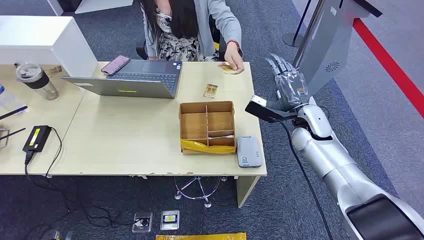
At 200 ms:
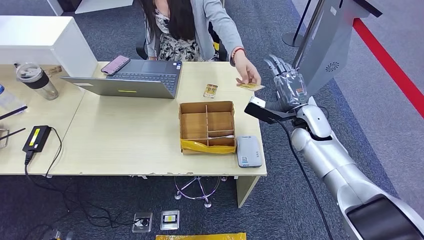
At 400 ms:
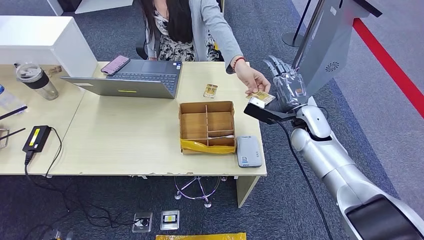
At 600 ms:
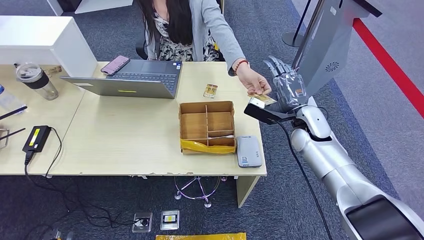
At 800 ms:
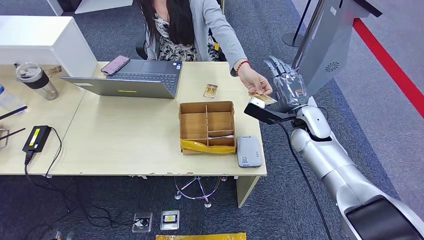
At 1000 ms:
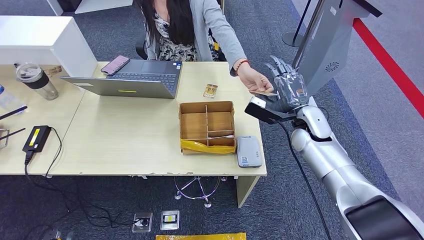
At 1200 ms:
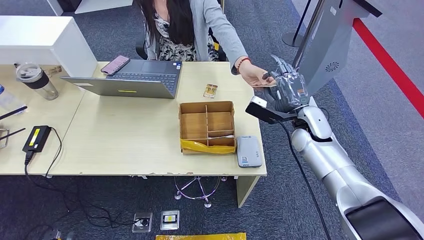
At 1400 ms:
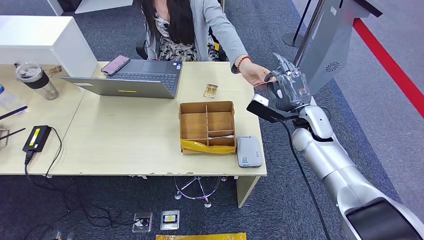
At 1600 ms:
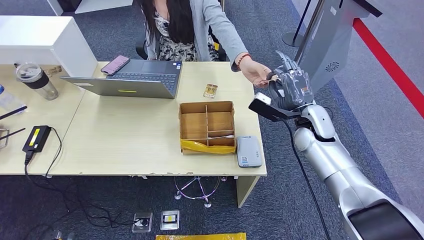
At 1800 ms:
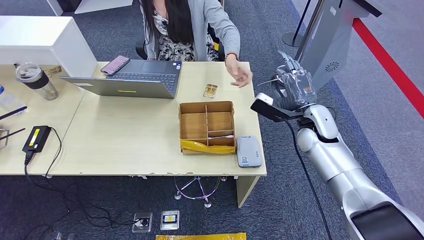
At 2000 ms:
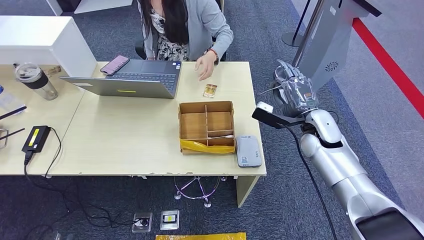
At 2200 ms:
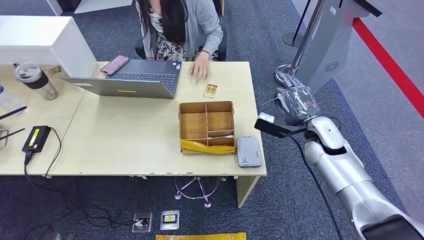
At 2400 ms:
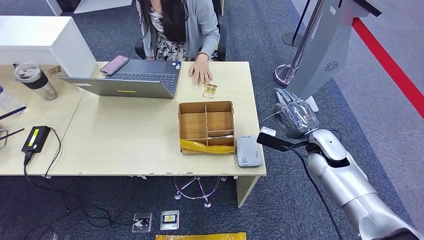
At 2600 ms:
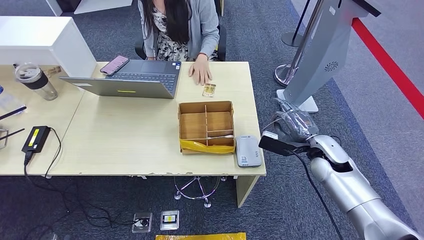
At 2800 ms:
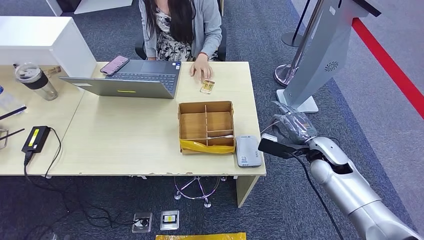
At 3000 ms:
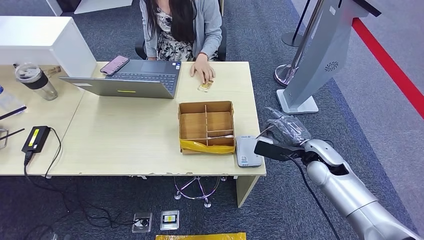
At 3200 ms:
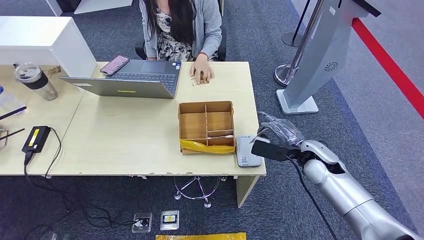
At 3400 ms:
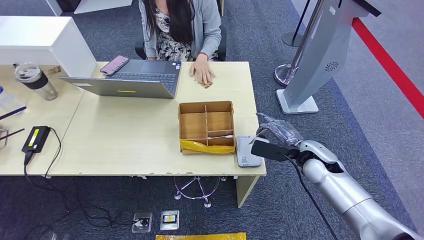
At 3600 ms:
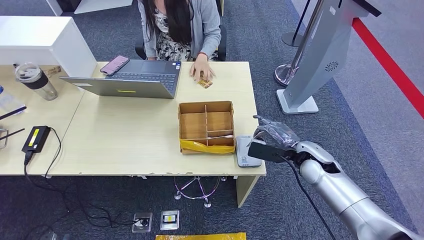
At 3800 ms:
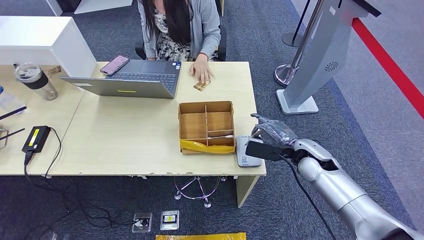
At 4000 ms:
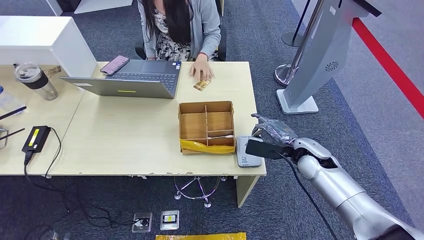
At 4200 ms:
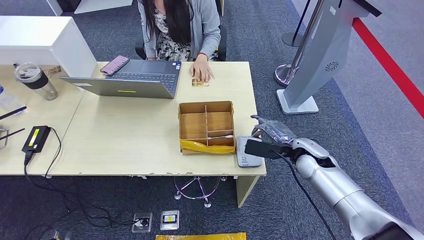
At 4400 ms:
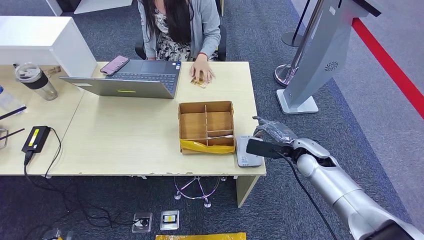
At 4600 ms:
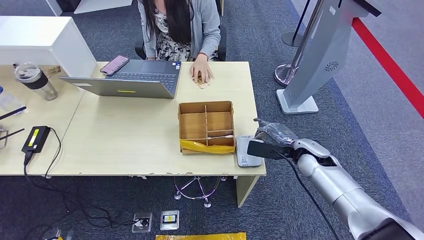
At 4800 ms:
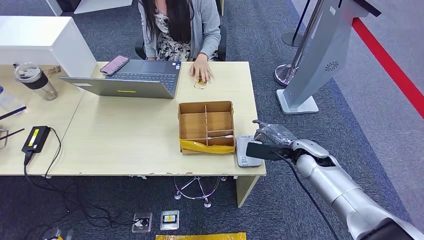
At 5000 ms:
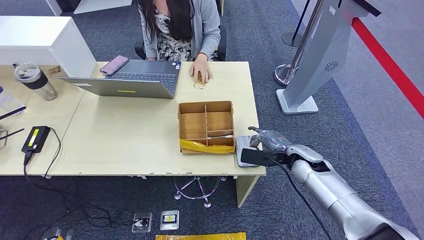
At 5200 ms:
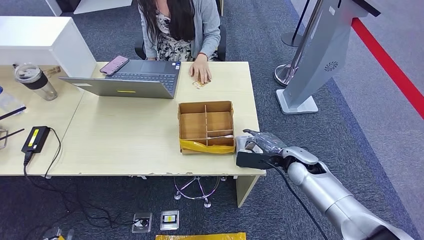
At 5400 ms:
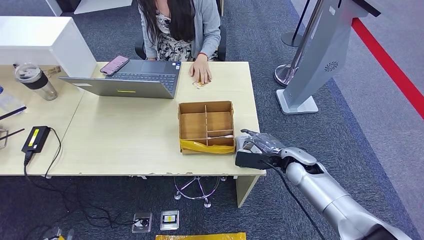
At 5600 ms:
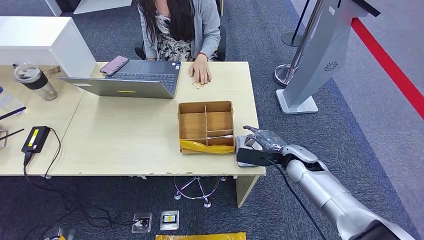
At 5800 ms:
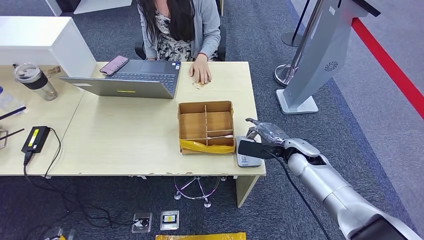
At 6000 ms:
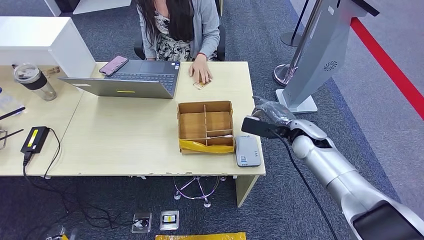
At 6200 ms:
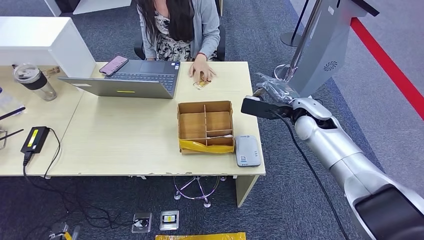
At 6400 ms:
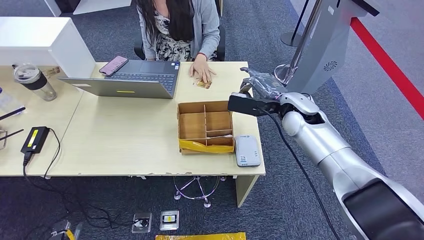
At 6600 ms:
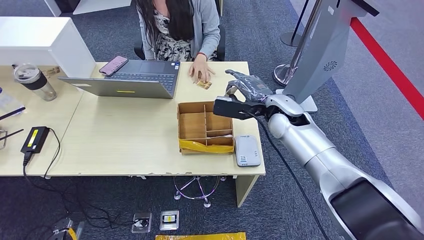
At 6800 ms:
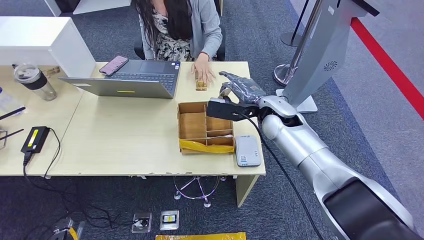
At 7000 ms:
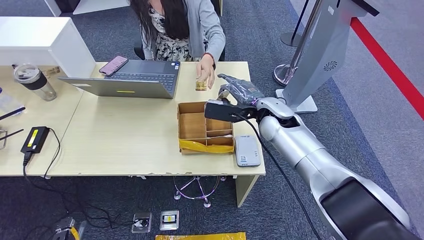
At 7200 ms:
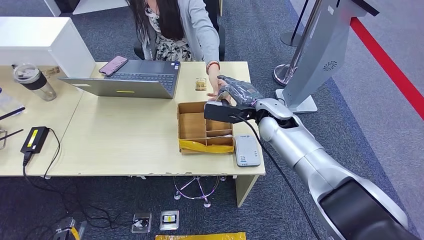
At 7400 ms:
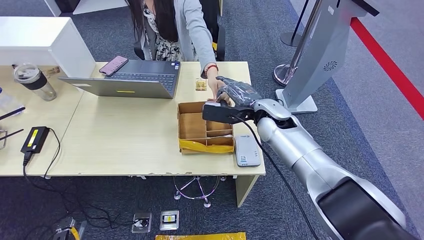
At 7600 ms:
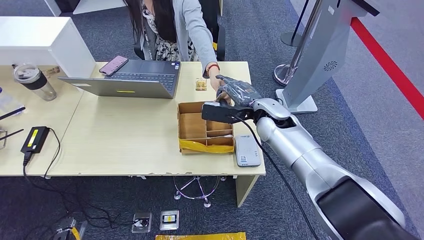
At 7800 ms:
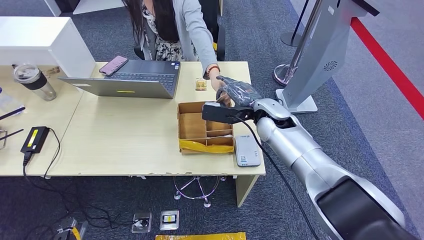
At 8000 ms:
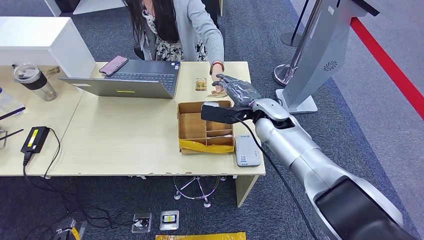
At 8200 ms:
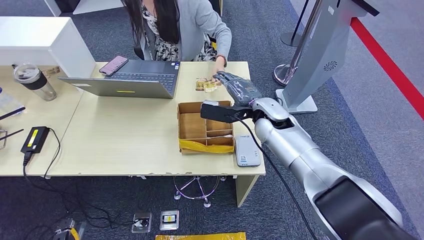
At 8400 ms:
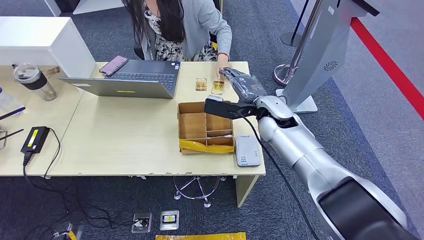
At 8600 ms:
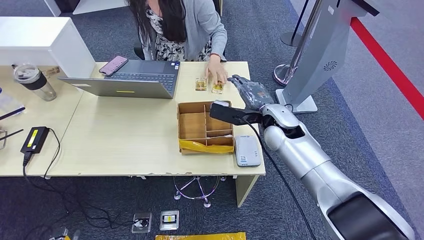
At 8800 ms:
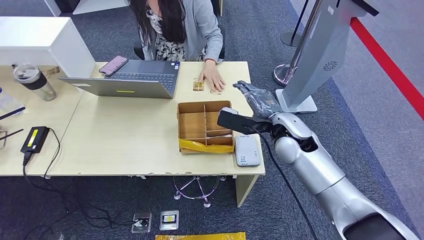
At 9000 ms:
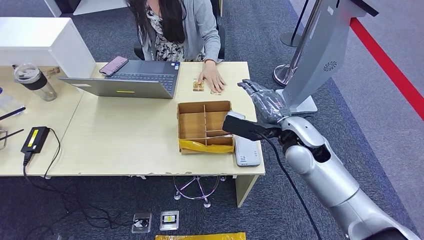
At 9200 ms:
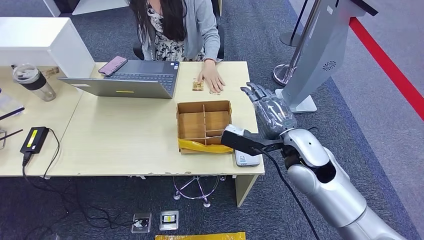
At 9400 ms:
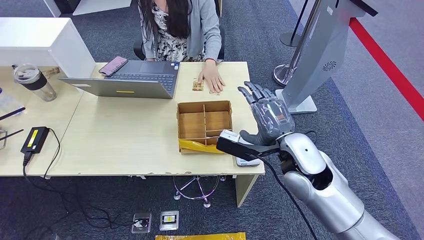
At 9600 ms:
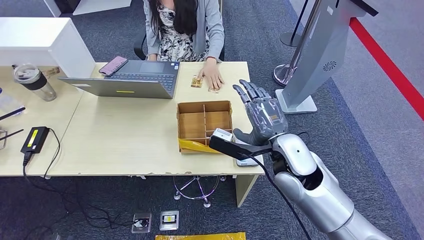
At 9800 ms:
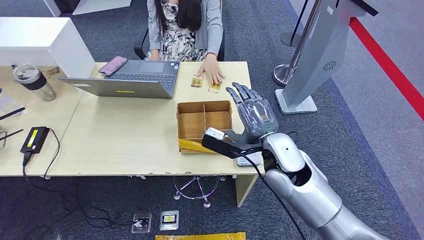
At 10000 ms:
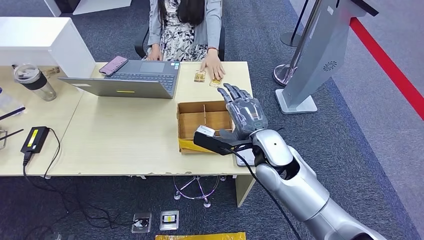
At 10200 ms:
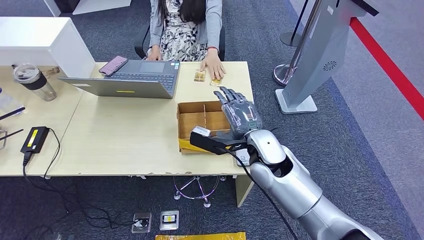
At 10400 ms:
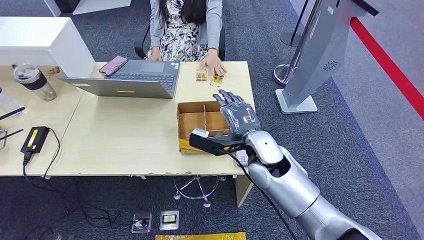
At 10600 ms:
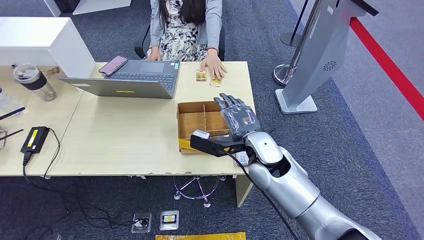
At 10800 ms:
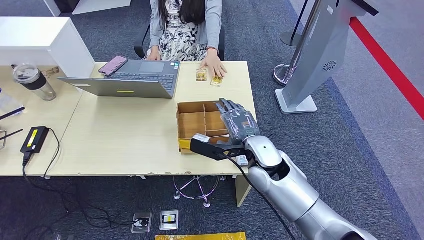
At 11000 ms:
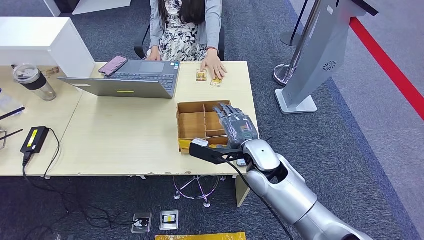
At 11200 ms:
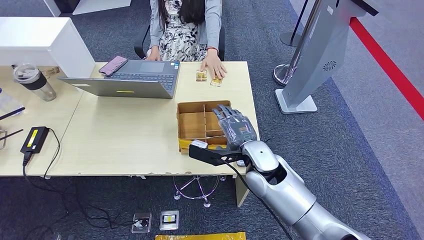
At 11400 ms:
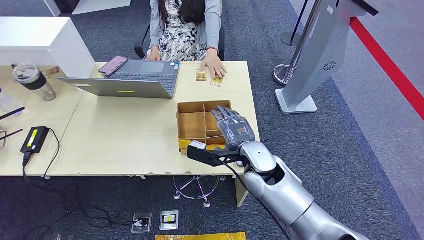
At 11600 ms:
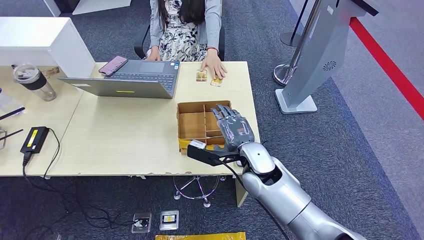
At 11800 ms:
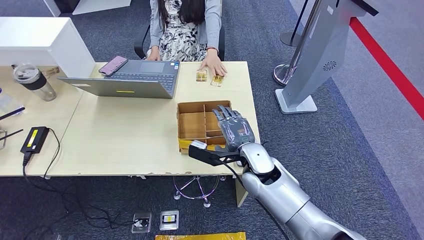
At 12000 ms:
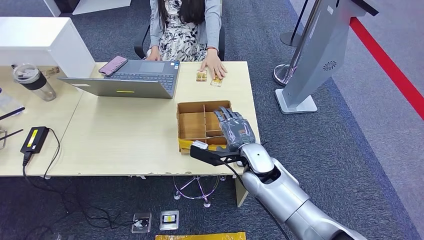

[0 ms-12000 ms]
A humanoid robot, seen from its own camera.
Step, 0 ms to 1400 ms: Take the ID card from the person's hand.
Step, 1600 ms to 4000 ms: Place the ID card on the card reader.
Step, 4200 ms to 8600 ms: Hand the ID card to the person.
1600 ms to 3000 ms: The right hand heads backward and downward, covering approximately 10 cm.
3000 ms to 4400 ms: There are only small adjustments of the hands.
4400 ms to 6000 ms: The right hand ends up some 5 cm from where it was.
6000 ms to 7600 ms: The right hand is displaced to the left and upward by some 15 cm.
7600 ms to 9000 ms: The right hand moves backward, roughly 5 cm.
9000 ms to 10400 ms: The right hand goes some 10 cm to the left.
10400 ms to 12000 ms: The right hand goes about 5 cm downward.

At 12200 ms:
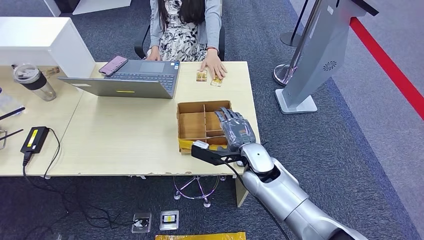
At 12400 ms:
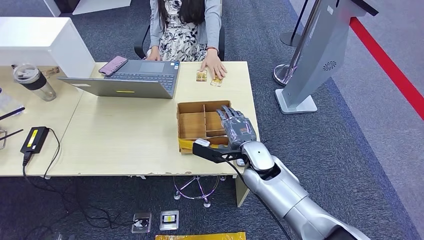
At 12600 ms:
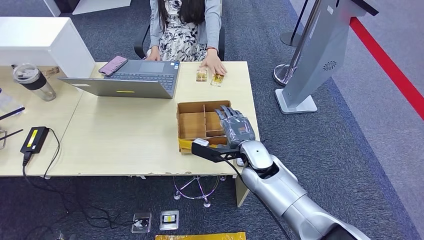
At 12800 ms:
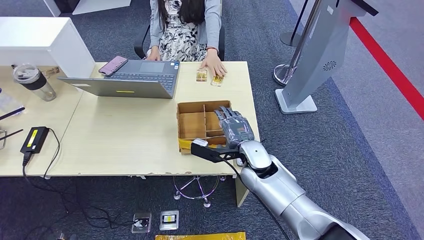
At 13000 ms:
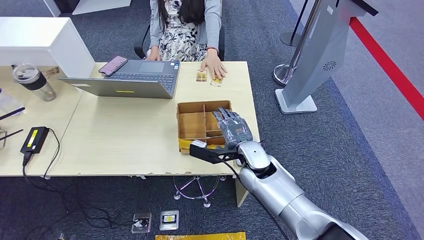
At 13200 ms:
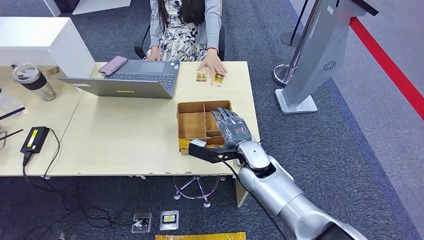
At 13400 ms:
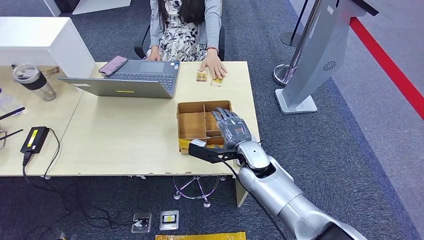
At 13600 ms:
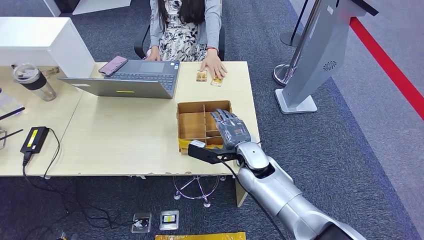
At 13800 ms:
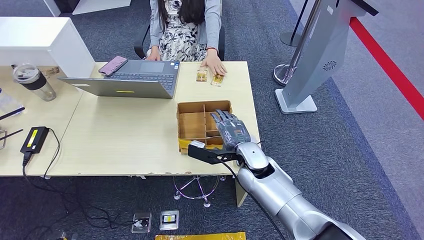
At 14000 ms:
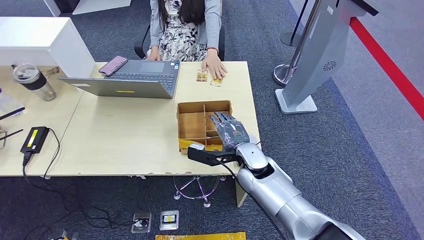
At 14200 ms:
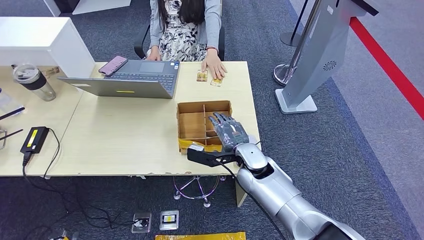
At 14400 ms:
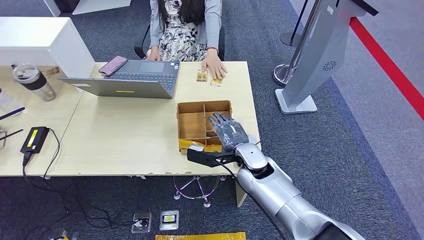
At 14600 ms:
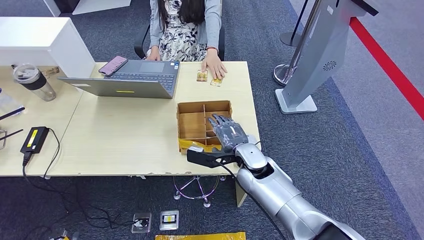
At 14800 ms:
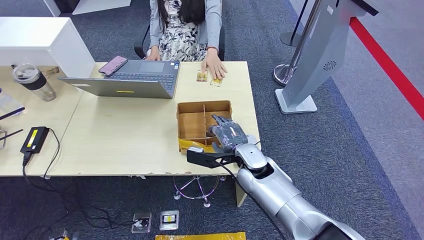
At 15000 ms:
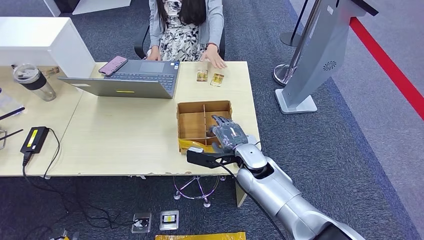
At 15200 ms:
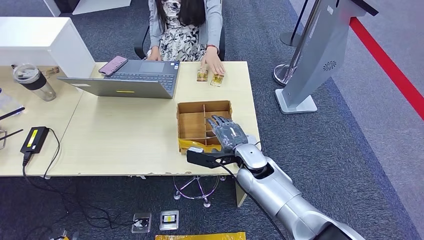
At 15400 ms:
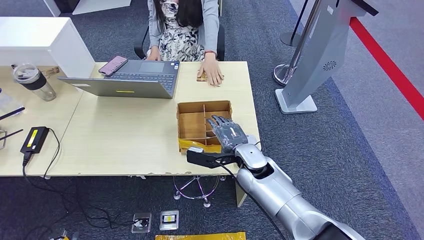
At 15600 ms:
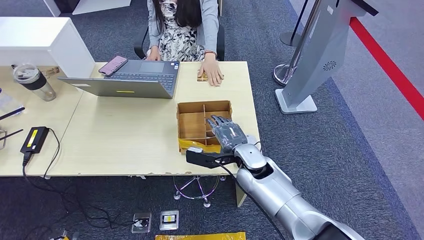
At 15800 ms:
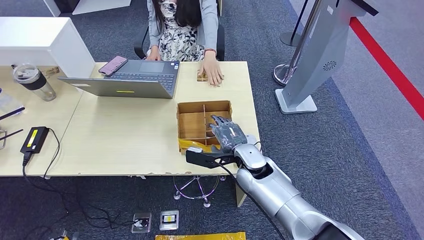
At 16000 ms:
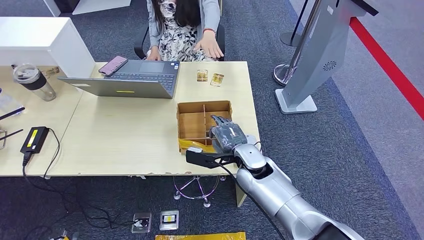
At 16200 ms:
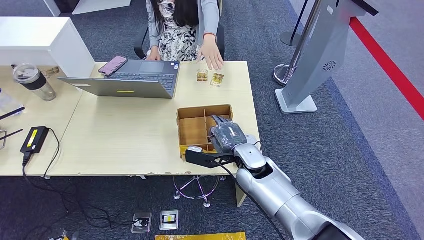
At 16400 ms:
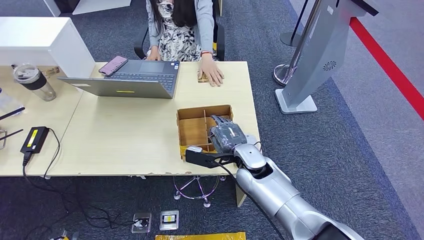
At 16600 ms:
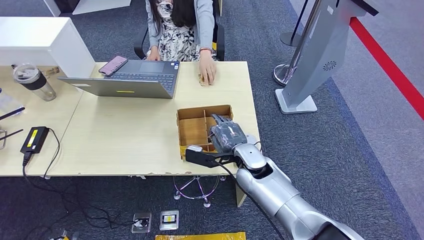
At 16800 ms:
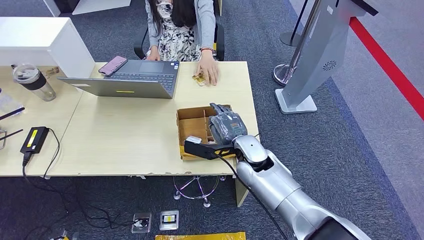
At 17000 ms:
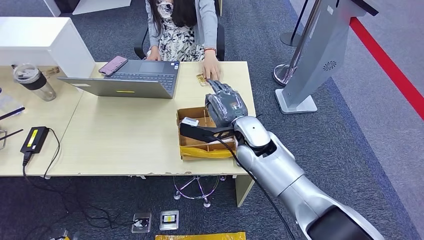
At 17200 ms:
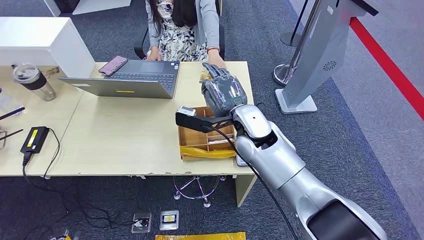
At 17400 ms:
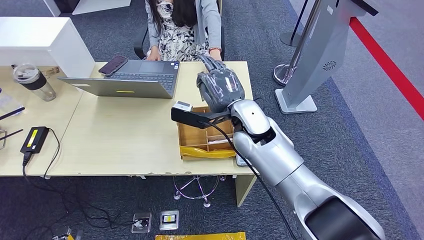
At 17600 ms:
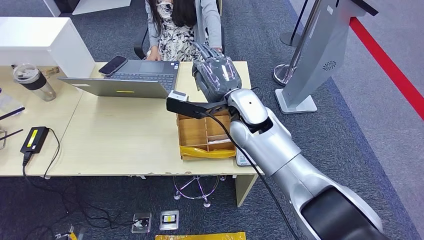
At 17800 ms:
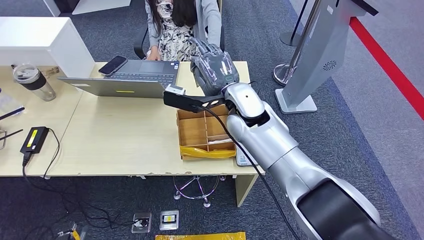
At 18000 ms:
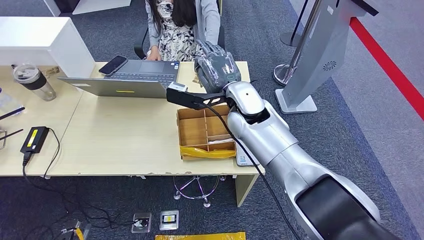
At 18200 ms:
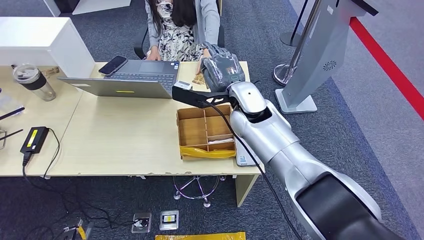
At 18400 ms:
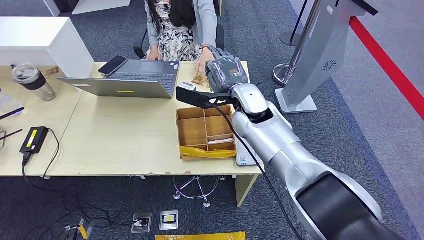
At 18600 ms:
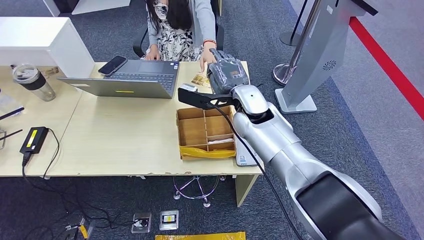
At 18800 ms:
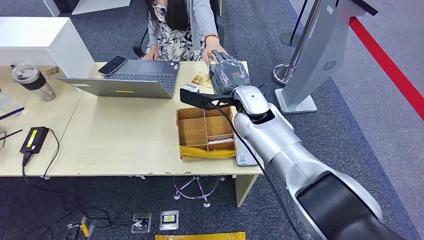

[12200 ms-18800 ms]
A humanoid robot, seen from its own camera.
Step, 12200 ms to 16000 ms: Pick up the room key from the key card box.
12200 ms to 13800 ms: Neither hand changes place.
13800 ms to 15400 ms: The hands make only small movements.
15400 ms to 17200 ms: The right hand shifts approximately 10 cm upward.
17200 ms to 18800 ms: The hands move only a little.
